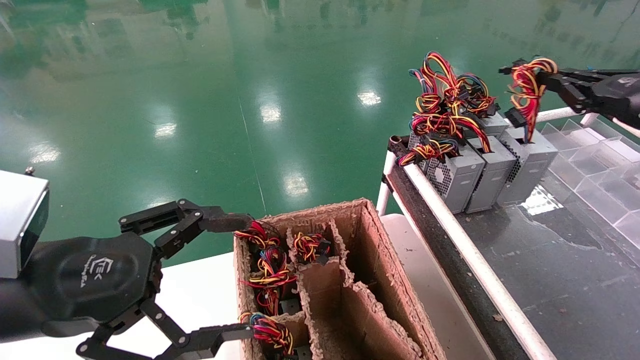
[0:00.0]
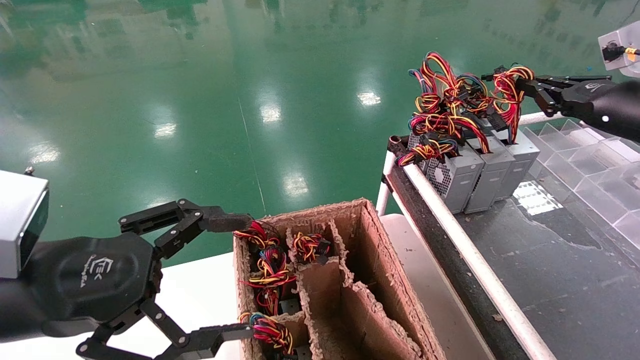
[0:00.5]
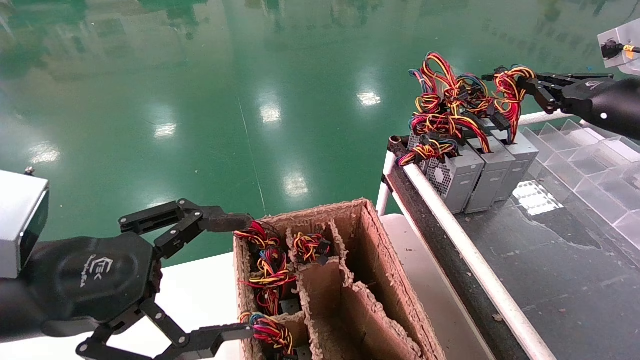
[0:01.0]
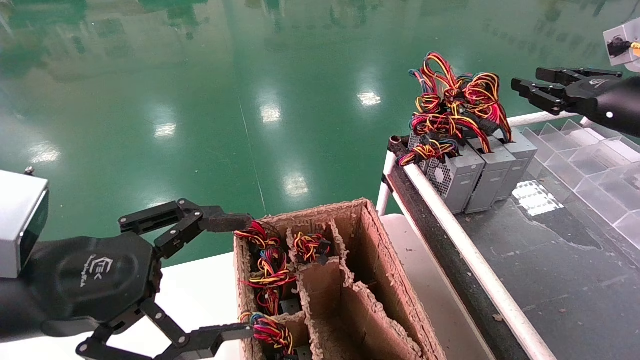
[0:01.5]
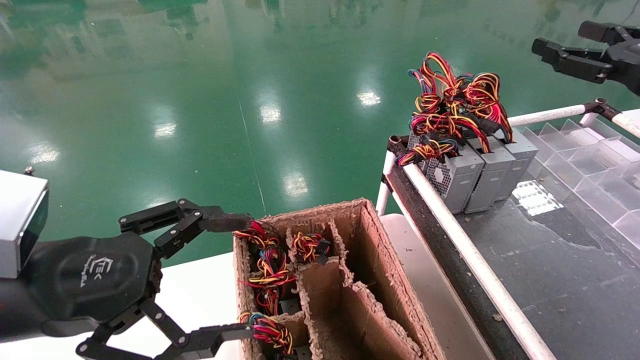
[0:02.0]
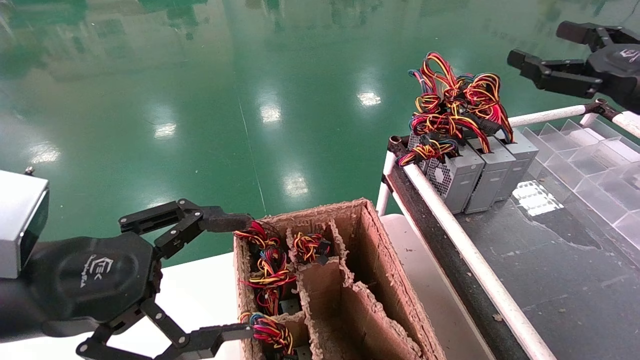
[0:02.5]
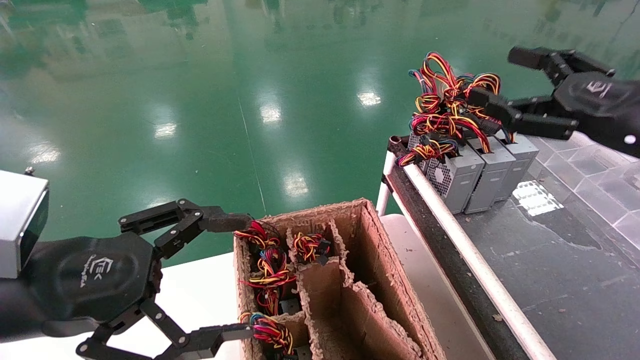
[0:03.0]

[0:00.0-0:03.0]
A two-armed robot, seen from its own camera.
0:00.0 to 0:01.5: The grippers make only small movements.
0:01.5 to 0:03.0: The right gripper goes roughly 10 cm backward and to the left, and opens up.
